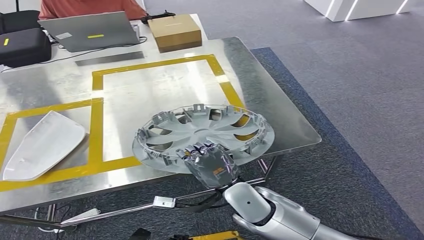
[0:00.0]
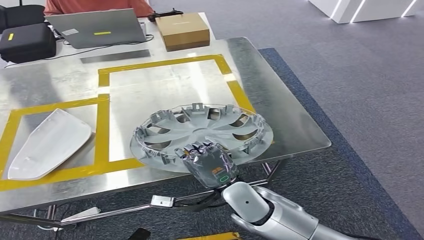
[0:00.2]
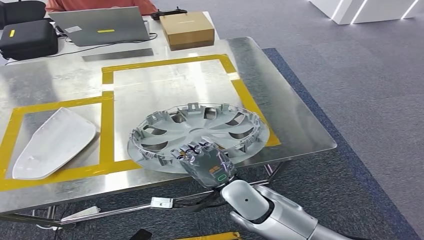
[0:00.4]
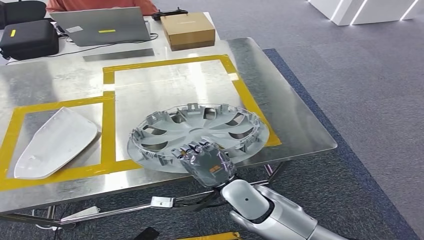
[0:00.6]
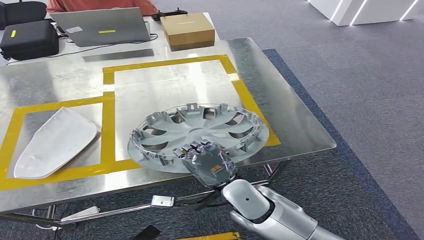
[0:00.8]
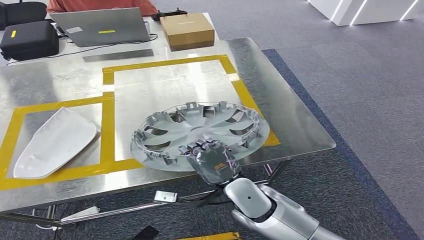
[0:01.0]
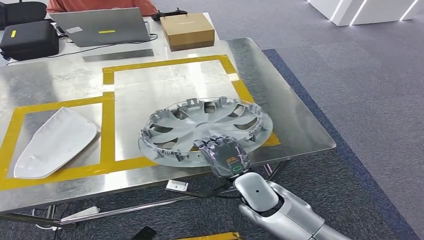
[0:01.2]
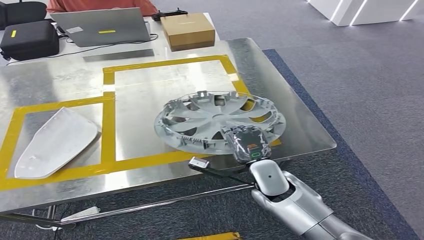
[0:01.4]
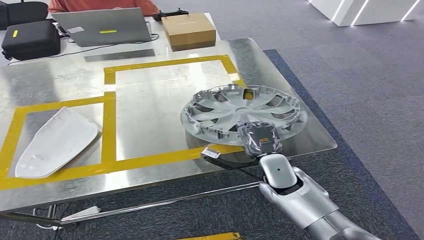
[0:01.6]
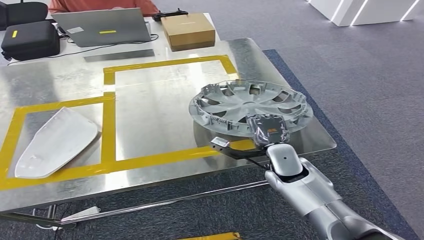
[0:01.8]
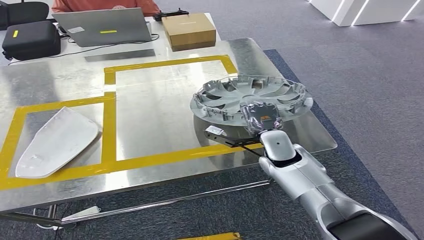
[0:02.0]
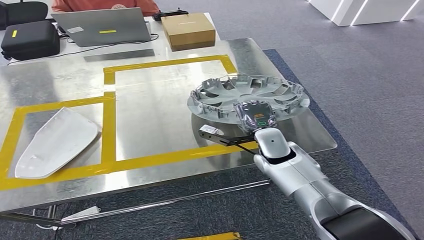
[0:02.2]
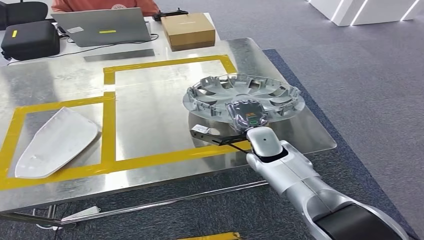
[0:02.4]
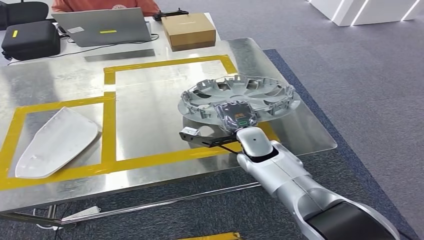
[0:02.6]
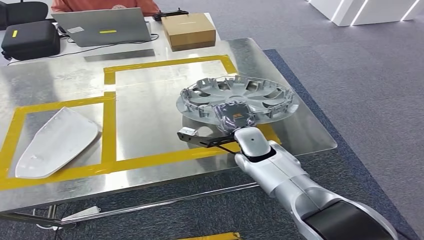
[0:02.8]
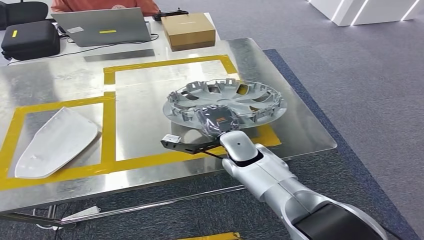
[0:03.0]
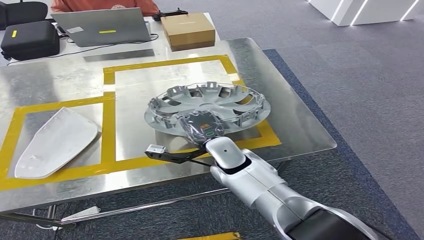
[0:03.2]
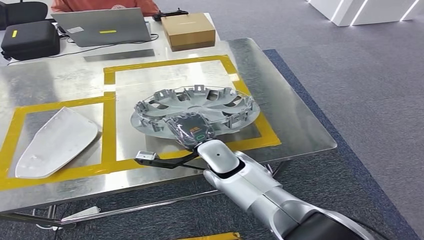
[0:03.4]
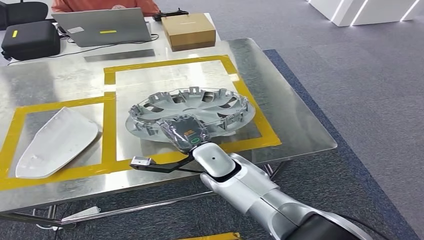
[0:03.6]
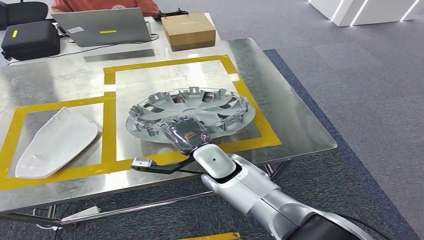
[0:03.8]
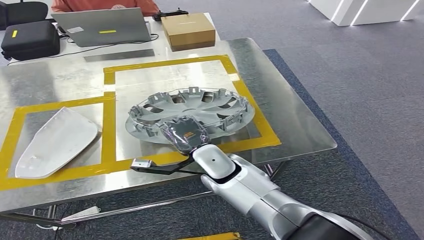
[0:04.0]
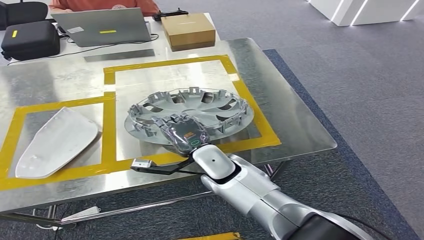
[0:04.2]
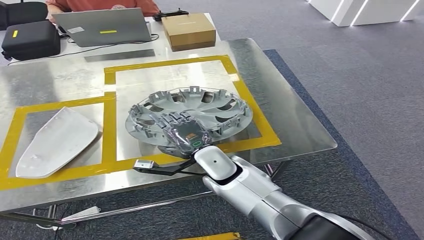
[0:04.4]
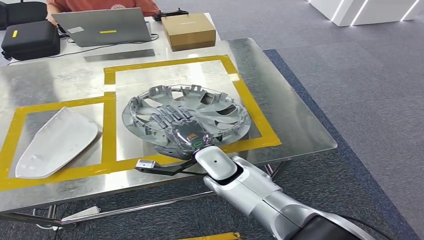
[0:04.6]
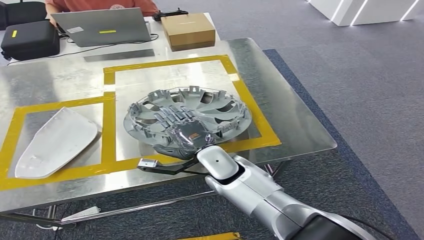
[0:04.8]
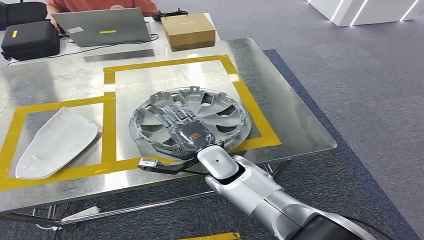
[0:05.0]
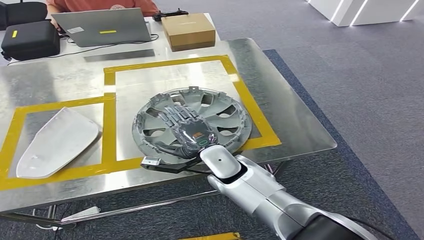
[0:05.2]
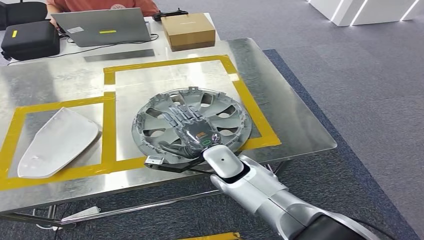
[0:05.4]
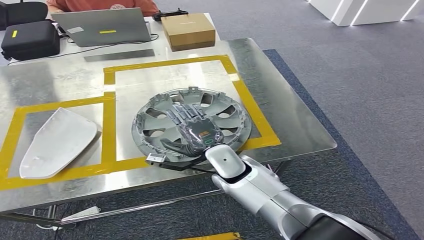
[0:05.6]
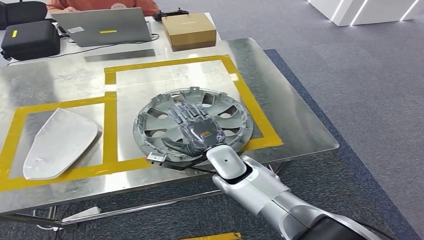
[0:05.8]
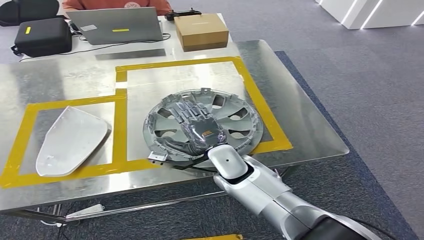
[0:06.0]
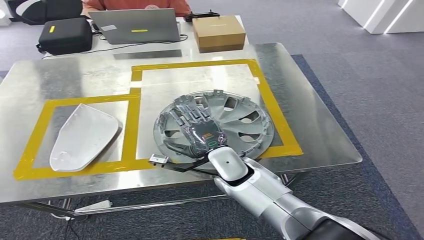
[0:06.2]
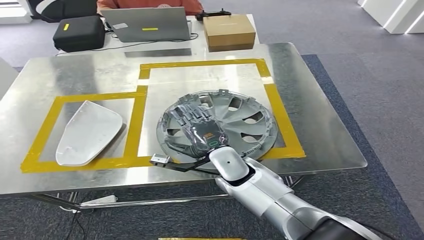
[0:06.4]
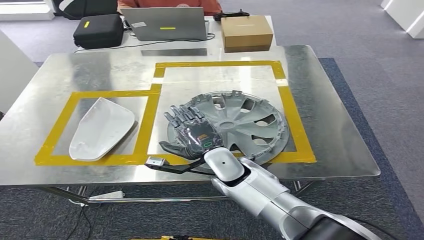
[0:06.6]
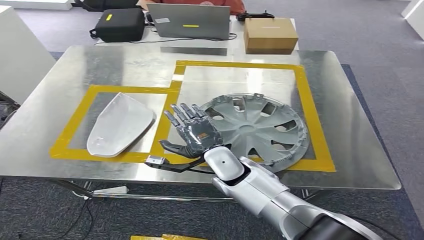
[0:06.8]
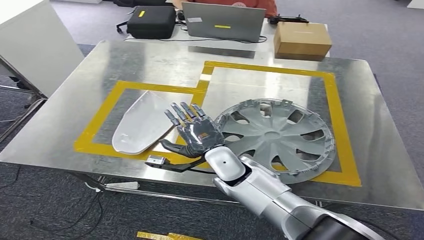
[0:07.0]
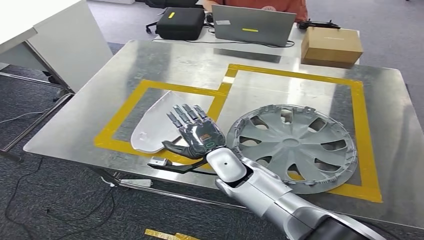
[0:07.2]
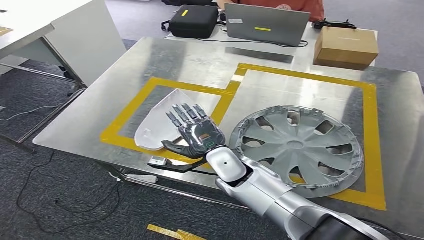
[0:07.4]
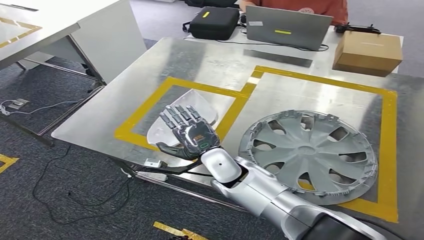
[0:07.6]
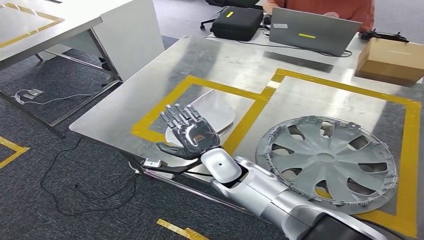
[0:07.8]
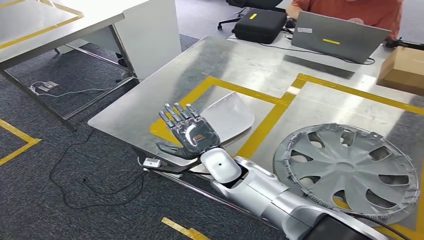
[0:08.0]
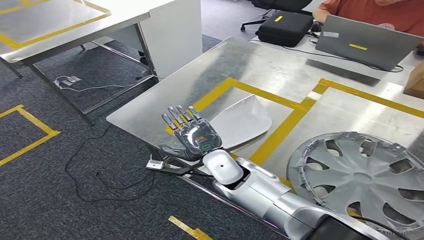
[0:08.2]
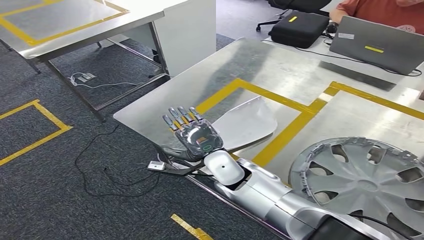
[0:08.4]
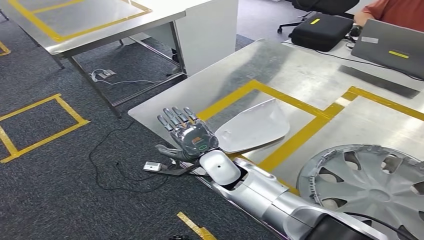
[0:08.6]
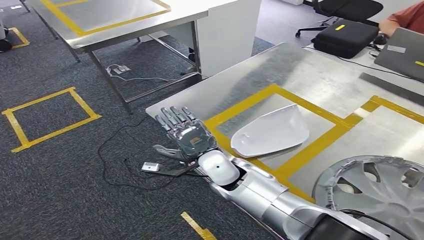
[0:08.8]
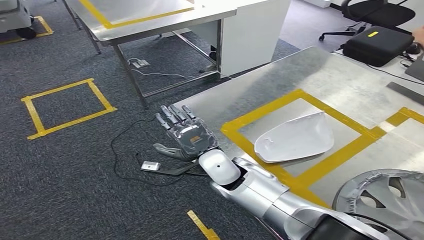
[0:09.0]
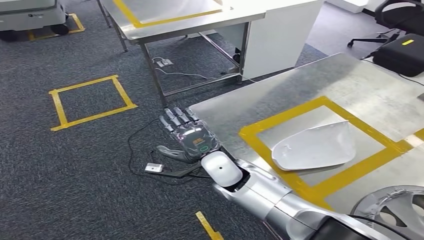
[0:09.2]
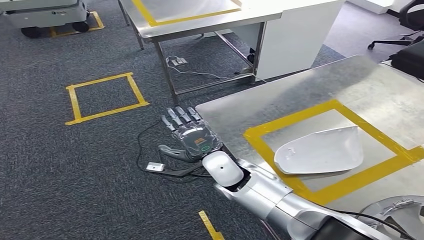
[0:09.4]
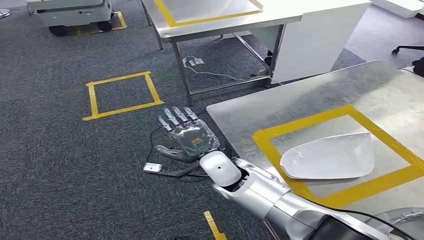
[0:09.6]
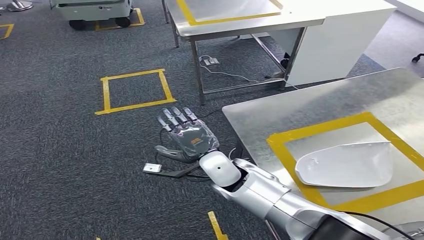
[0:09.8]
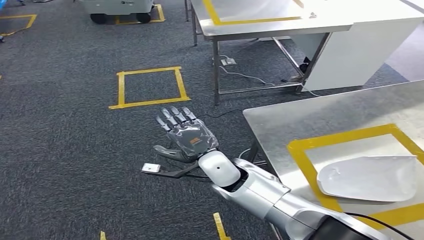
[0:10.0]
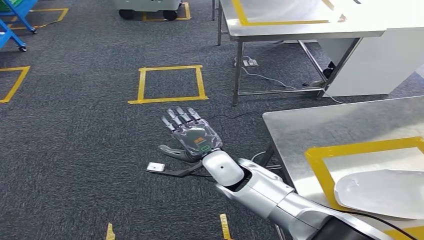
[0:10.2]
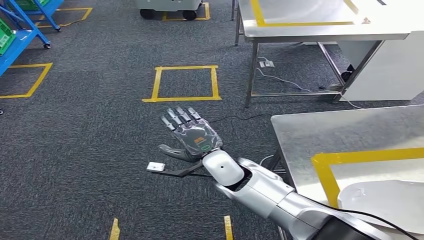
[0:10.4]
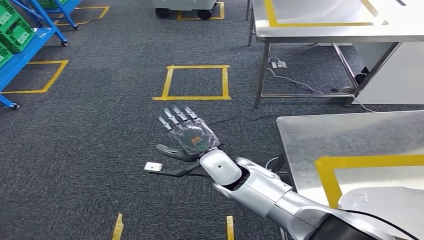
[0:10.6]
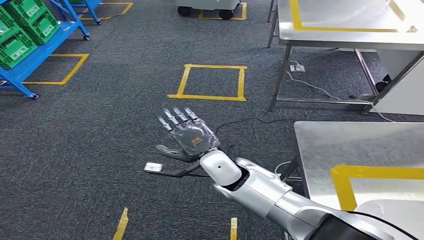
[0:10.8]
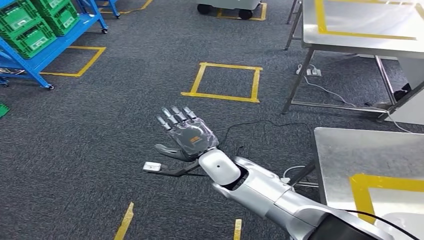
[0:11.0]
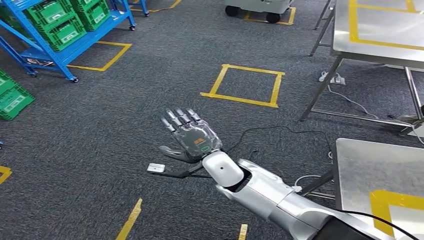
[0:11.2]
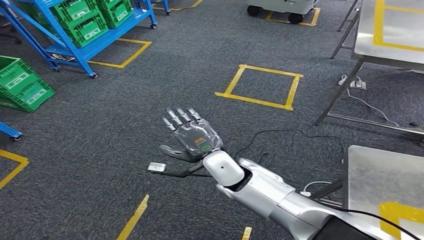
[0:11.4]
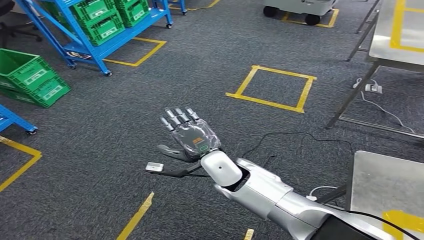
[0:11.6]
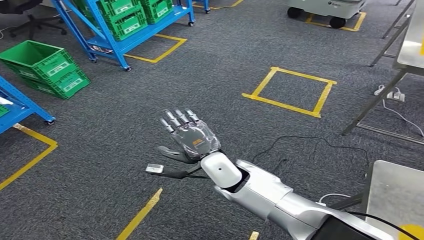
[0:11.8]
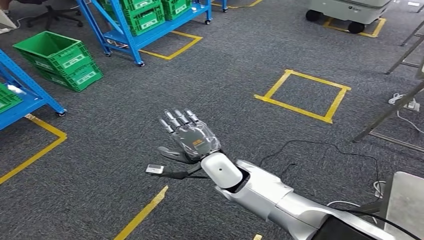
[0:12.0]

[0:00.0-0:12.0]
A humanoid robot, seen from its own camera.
Step, 0:00.0 to 0:07.0: Insert the small component into the corresponding slot on the workbench.
0:01.6 to 0:03.0: The right hand moves to the left, roughly 10 cm.
0:03.0 to 0:04.4: The right hand moves about 5 cm.

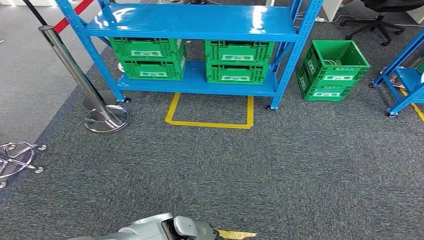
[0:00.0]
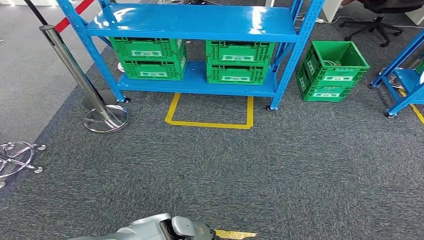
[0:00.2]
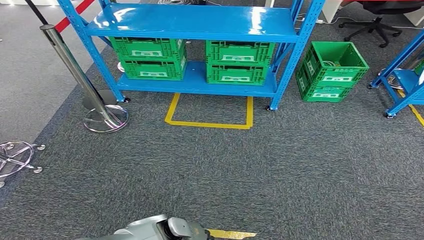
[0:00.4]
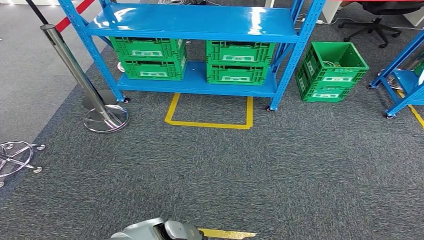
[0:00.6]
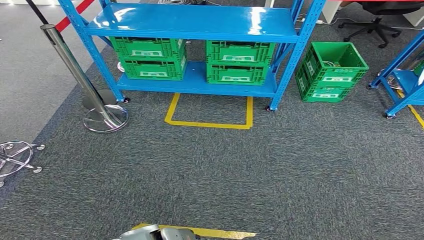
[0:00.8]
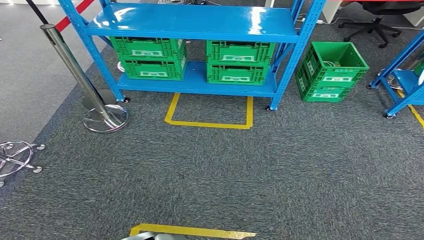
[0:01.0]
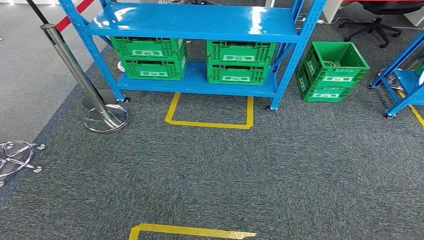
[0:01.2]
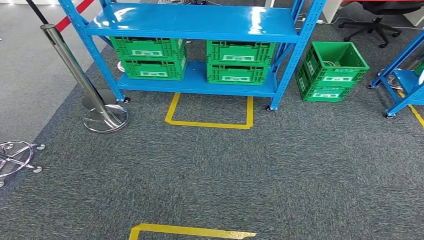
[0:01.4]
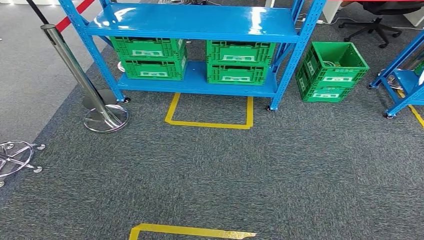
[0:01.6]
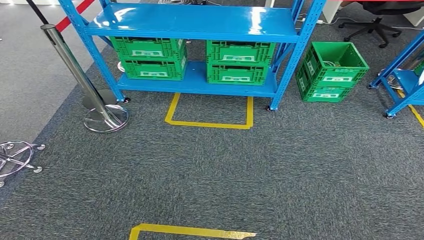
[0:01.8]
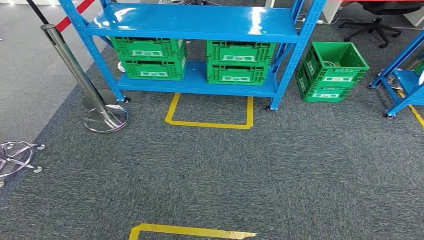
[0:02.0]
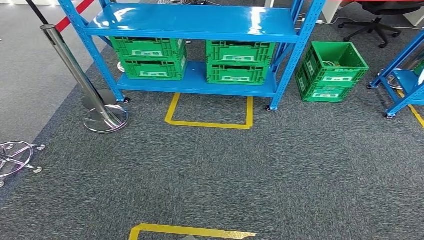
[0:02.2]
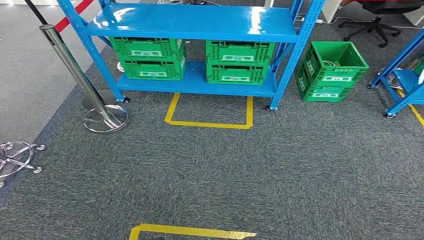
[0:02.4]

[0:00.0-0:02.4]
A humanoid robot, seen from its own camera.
Step, 0:00.0 to 0:02.4: Return to the initial position at the workbench.
0:00.0 to 0:01.2: The left hand travels backward by roughly 10 cm.
0:01.2 to 0:02.4: The left hand shifts about 10 cm to the left and backward.
